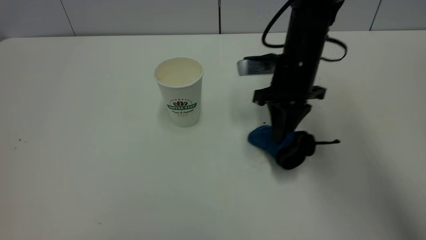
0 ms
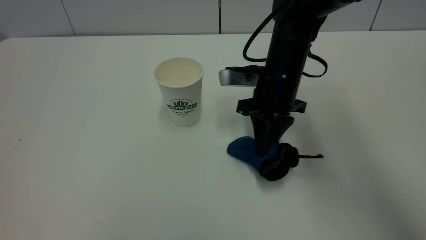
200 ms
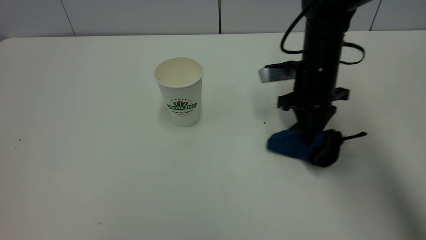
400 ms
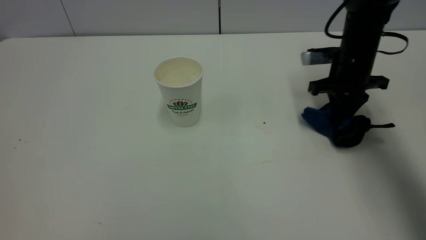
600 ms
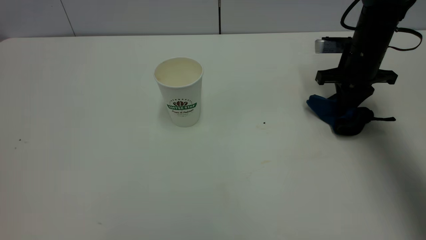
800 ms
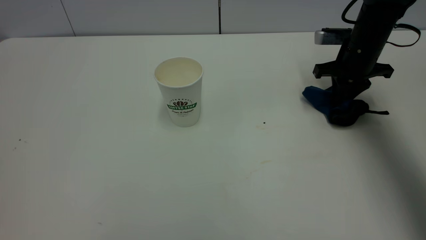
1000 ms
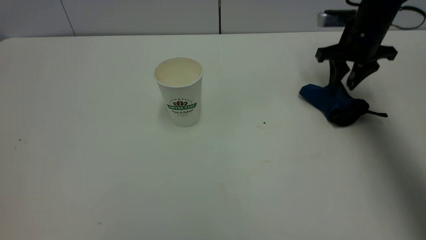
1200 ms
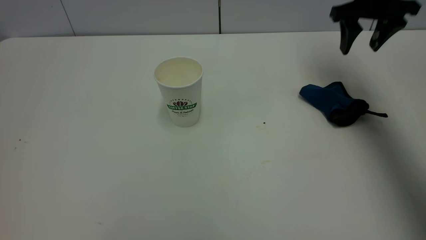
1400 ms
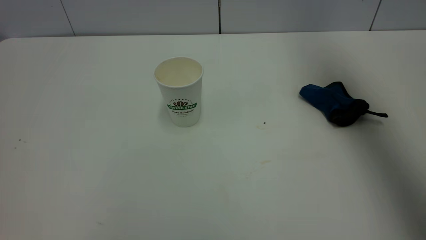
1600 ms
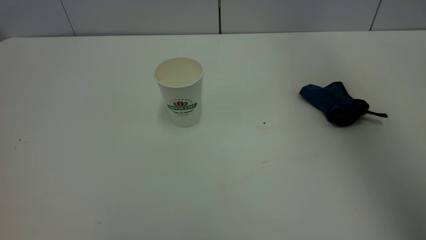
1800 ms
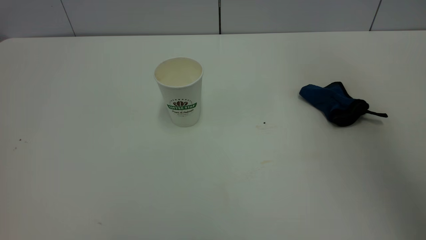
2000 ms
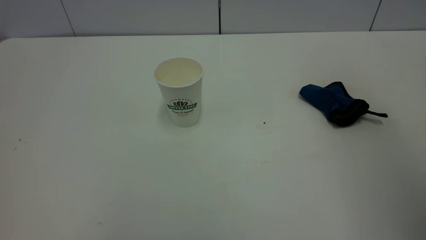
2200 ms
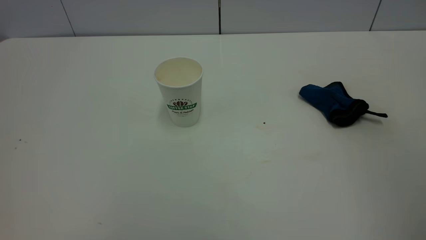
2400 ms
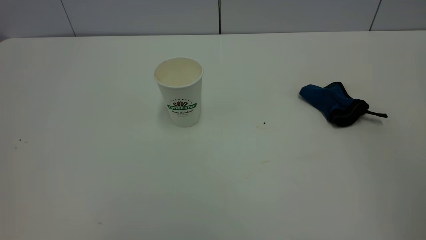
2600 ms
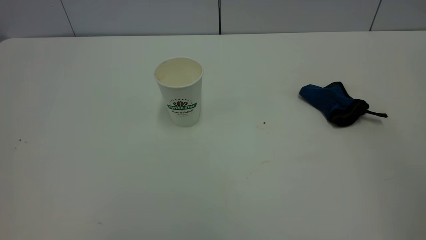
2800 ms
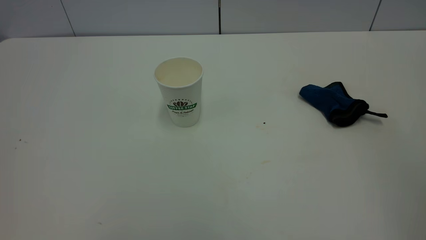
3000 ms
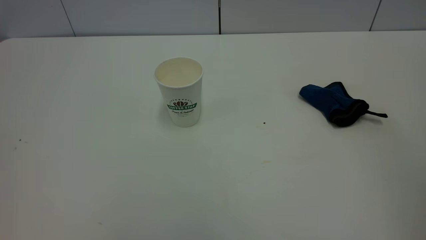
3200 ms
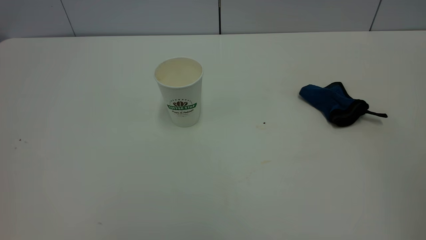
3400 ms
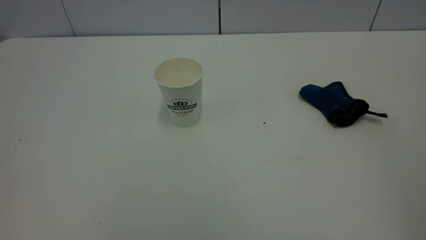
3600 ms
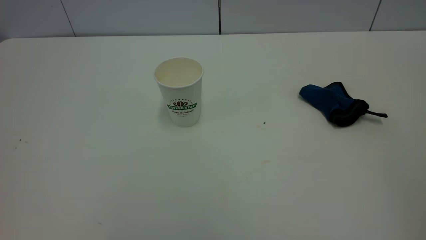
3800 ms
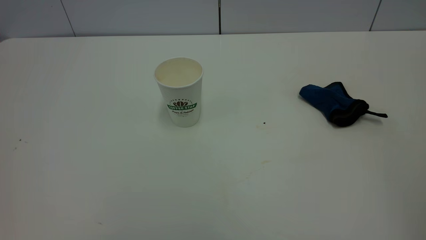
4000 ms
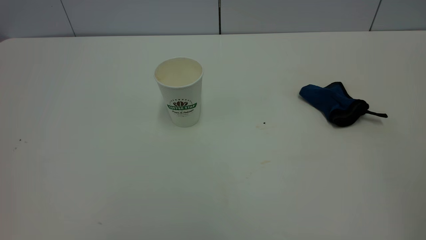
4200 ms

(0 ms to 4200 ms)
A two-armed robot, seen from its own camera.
Task of the whole recording: the left gripper pick up the fallen cup and place it upright, the right gripper grasp the blue rag and wipe the tea stain on the table, the right gripper put the blue rag back in its original position.
0 ms - 1400 ms: The right gripper goes approximately 20 cm to the right, upward and forward, and opens.
1400 ms - 2800 ms: The right gripper shifts some 40 cm backward.
